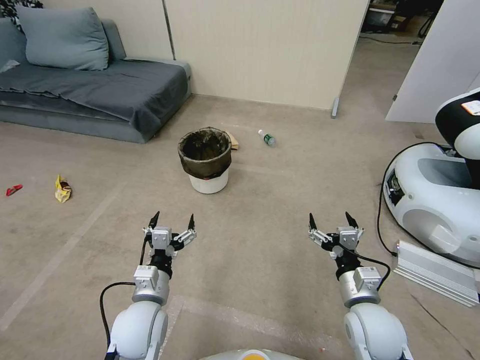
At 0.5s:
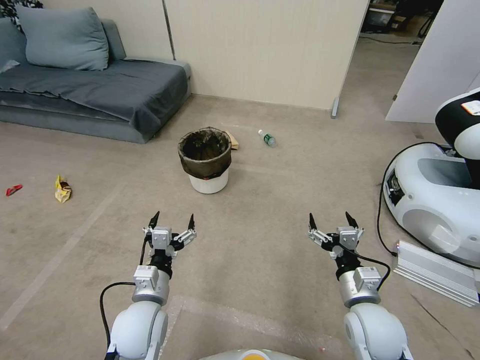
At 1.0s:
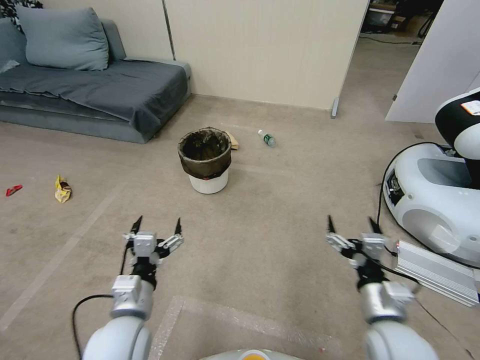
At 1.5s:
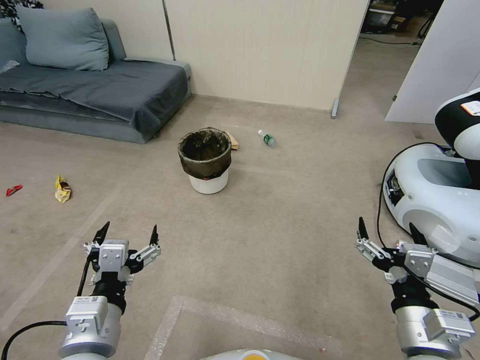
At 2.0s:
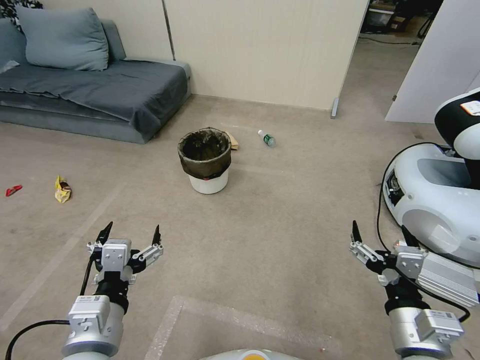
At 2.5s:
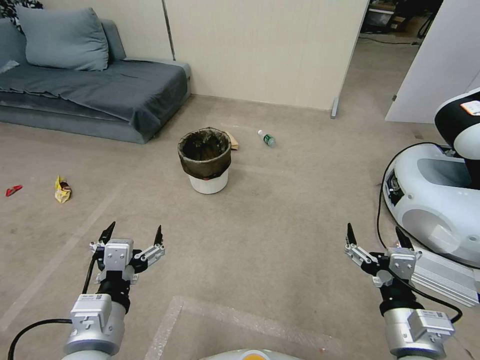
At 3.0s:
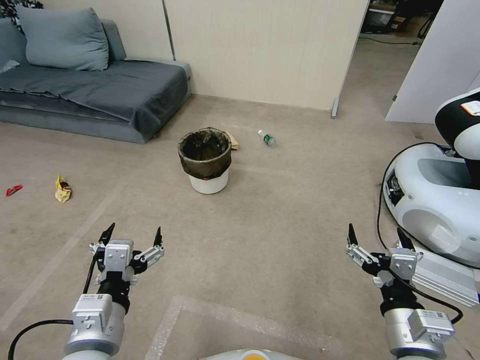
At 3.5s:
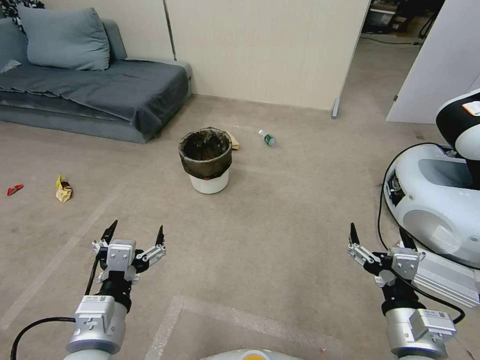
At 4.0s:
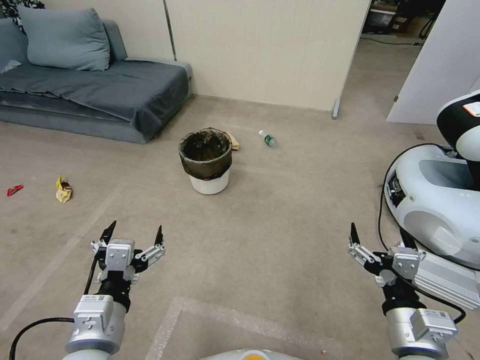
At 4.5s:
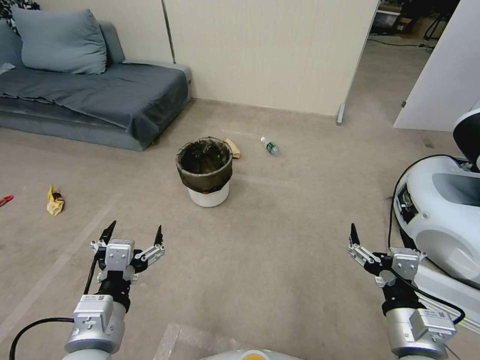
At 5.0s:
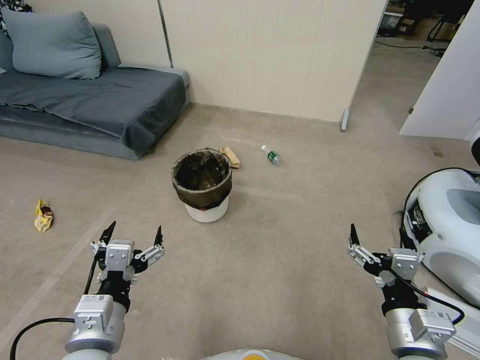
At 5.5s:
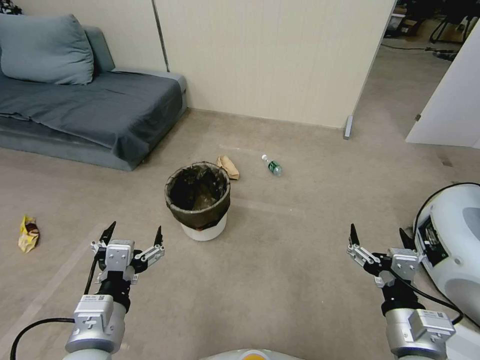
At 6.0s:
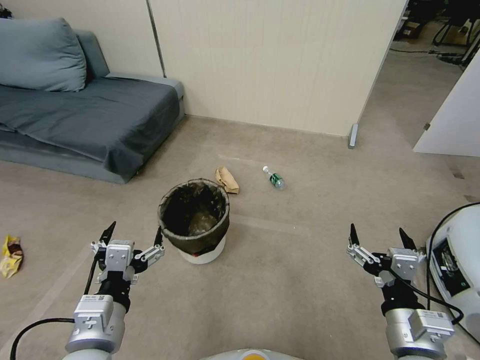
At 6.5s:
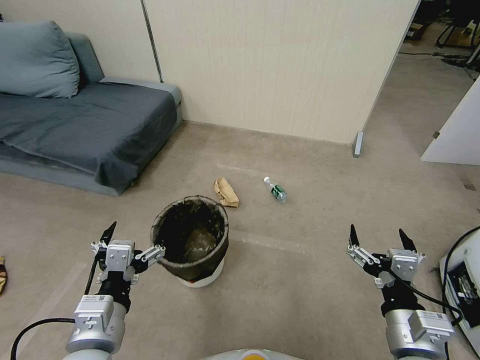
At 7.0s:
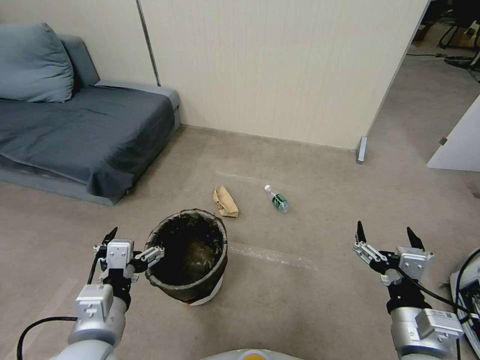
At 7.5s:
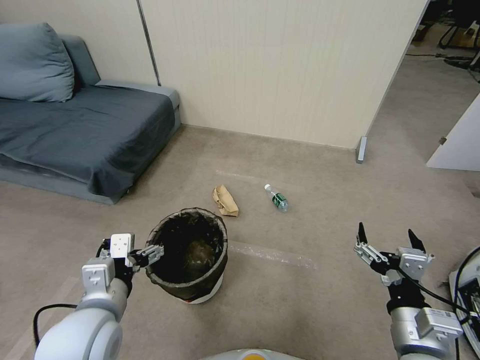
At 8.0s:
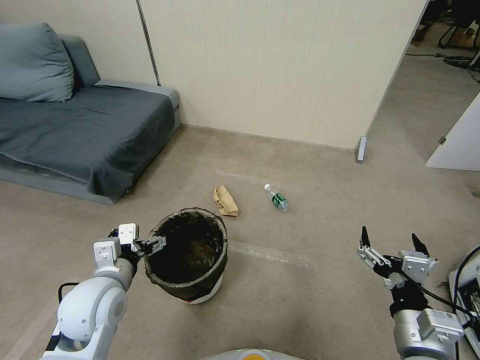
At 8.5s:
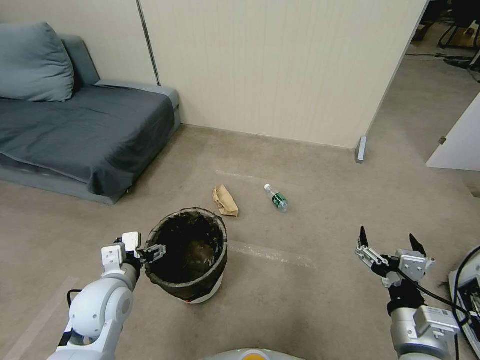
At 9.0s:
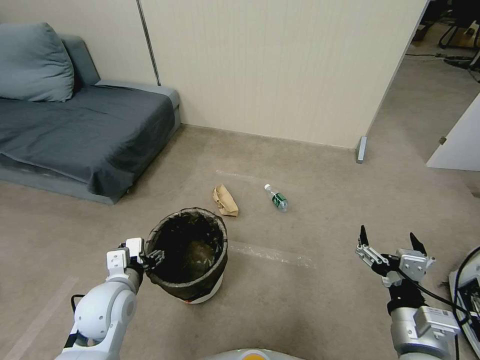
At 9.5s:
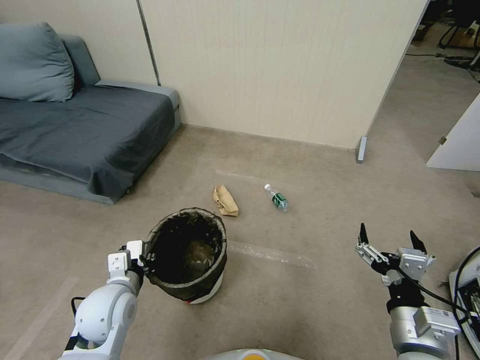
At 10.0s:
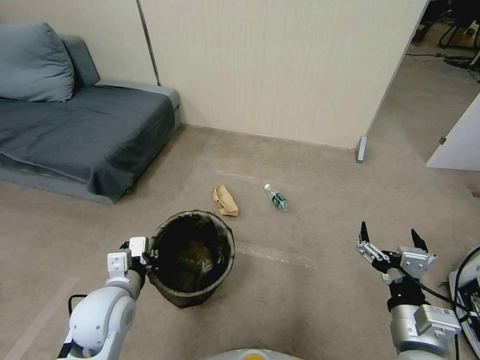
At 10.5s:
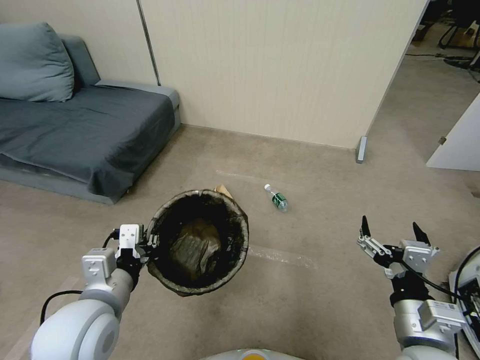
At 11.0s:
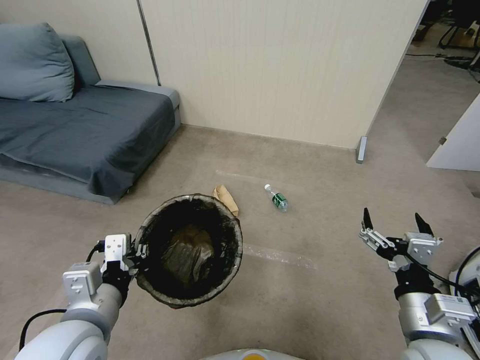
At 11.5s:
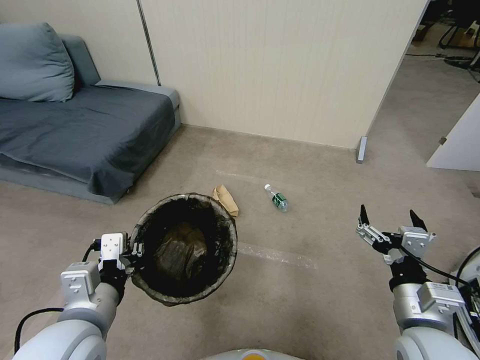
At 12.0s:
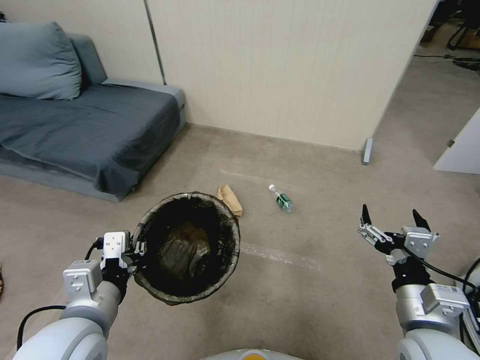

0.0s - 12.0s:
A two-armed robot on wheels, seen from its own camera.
Task of the whole recording: Pick up the trash bin, then pick up the garbage from the floor and place it into the trash bin.
2.0s - 4.0s: The two grippers keep their place.
6.0s - 8.0s: The left gripper travels forward by roughly 10 cm.
8.0s - 10.0s: The left gripper closes its fingers.
10.0s - 12.0s: The left gripper heads upward and backward, covering some 10 cm.

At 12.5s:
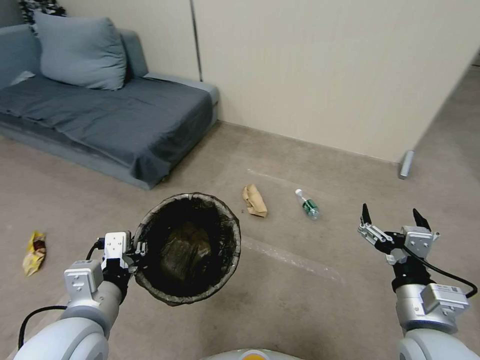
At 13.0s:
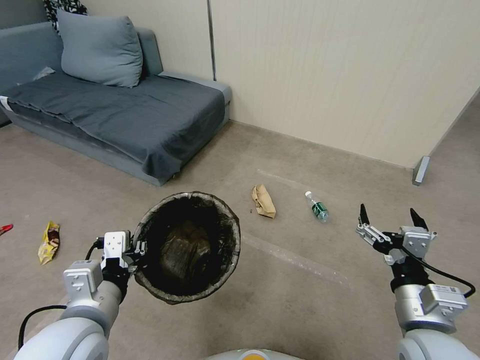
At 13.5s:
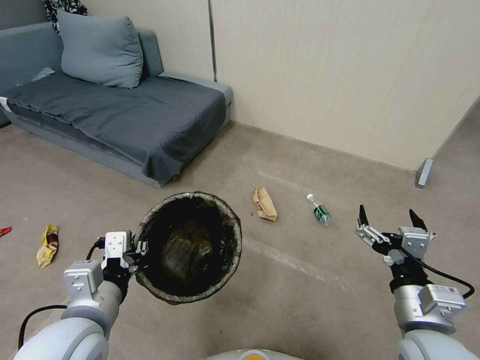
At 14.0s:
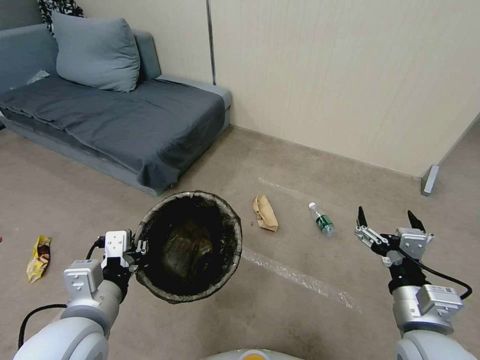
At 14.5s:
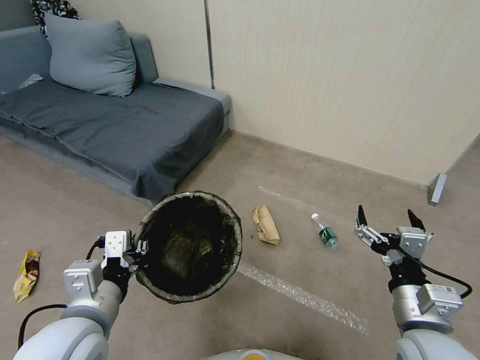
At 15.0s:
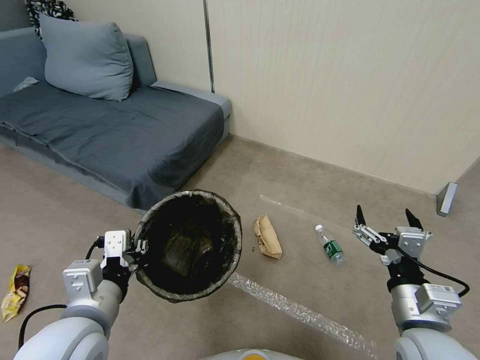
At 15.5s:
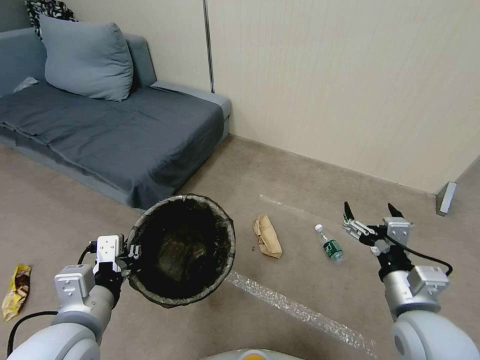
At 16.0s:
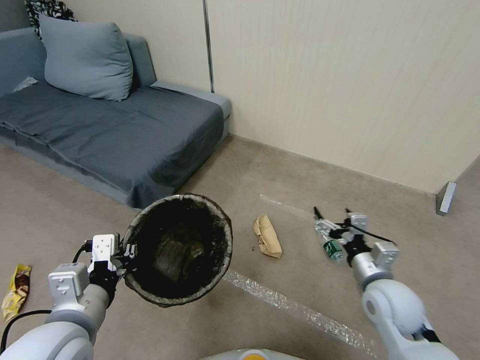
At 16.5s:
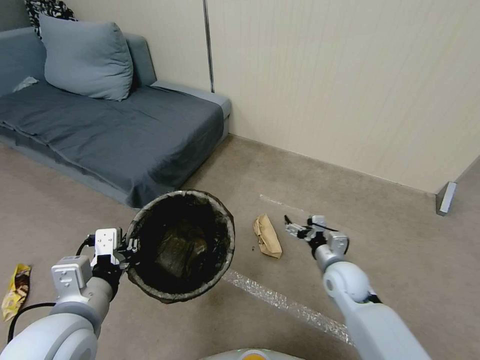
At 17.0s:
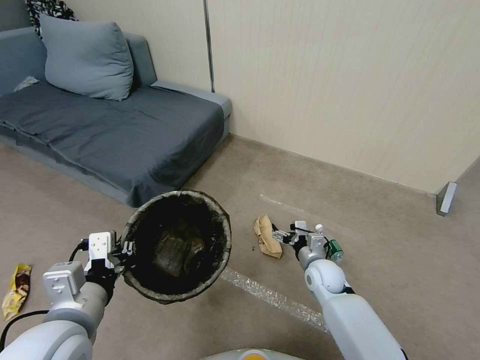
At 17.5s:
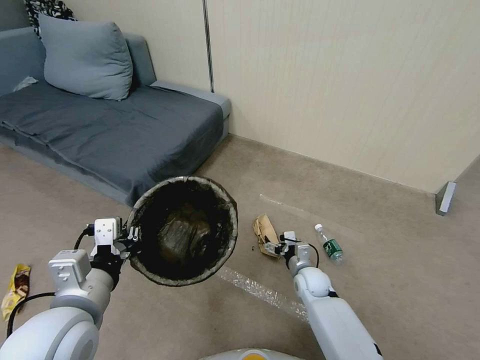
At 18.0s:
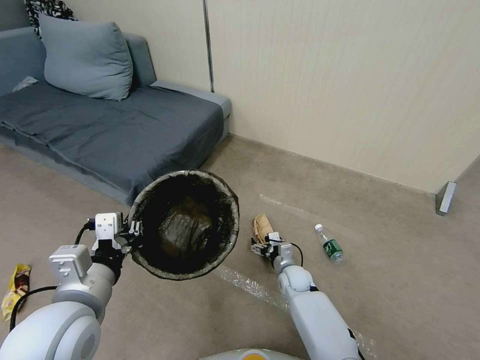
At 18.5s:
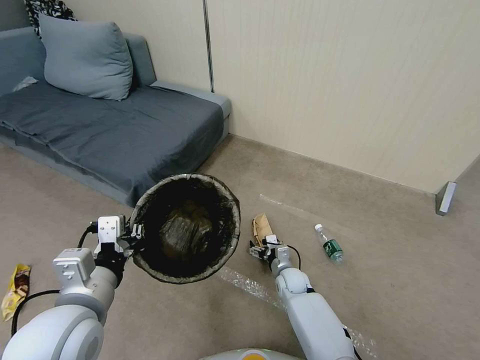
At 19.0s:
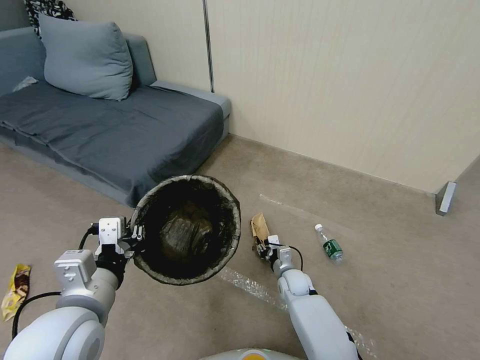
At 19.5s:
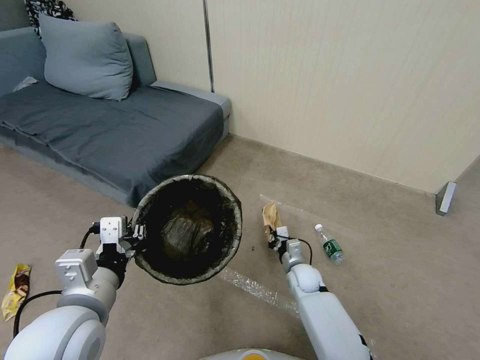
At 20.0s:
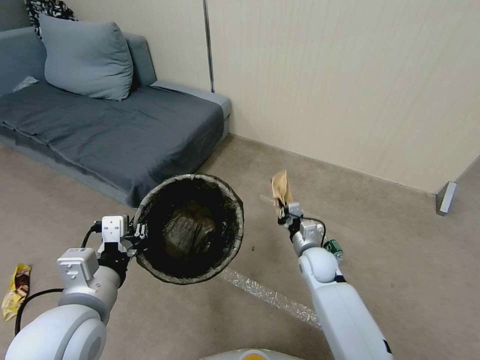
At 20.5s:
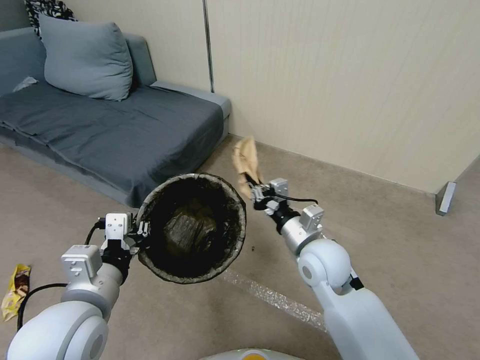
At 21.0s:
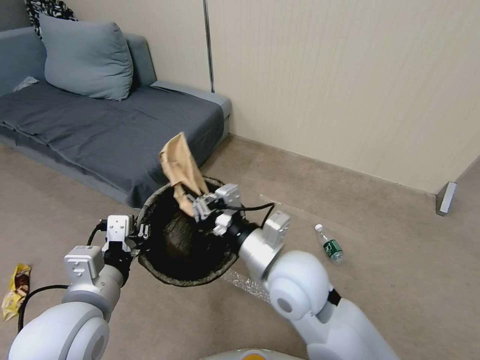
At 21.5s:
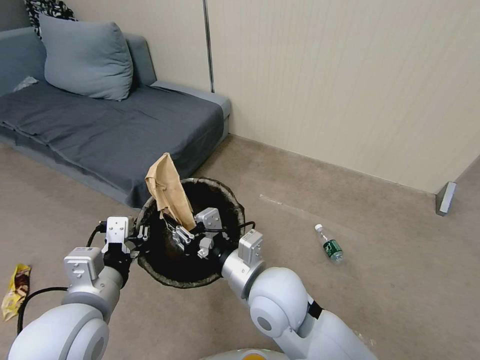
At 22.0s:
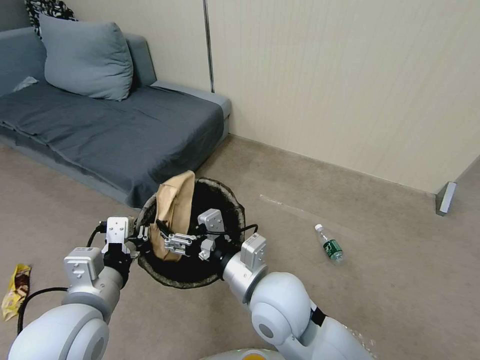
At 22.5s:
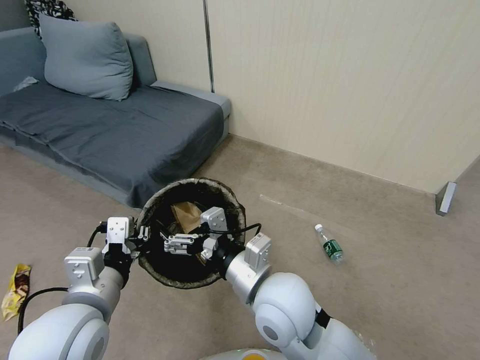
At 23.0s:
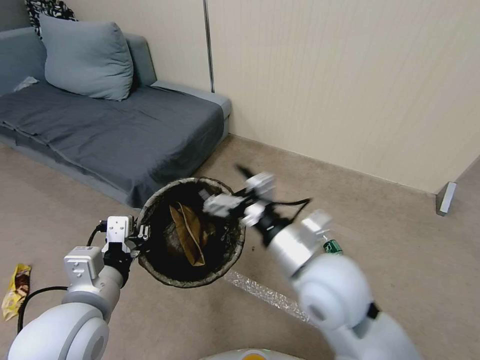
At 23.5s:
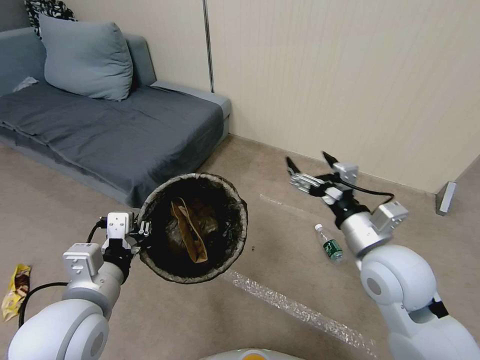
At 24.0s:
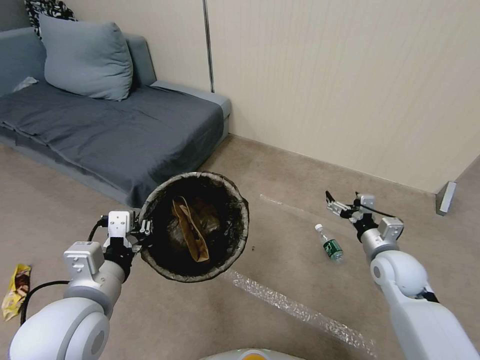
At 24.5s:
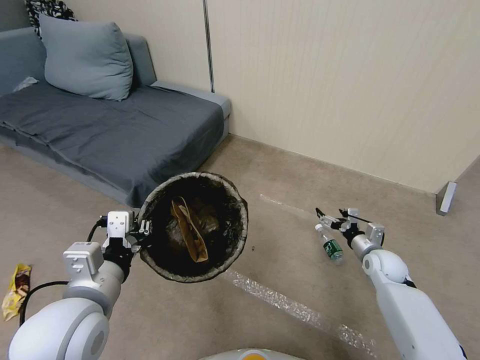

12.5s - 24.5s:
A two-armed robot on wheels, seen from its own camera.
Task of the whole recording: Pick up the trash bin, then pick up the garbage from the floor and place it into the trash bin.
12.5s - 14.5s: The two grippers keep their place.
14.5s - 16.5s: The right gripper shifts some 20 cm forward and downward.
16.5s - 18.5s: The right gripper travels downward and to the left by some 20 cm.
18.5s - 20.5s: The right gripper travels upward by approximately 30 cm, and closes its fingers.
20.5s - 22.5s: The right gripper goes some 15 cm to the left and backward, and opens.
22.5s - 24.5s: The right gripper heads to the right, downward and forward, covering roughly 40 cm.

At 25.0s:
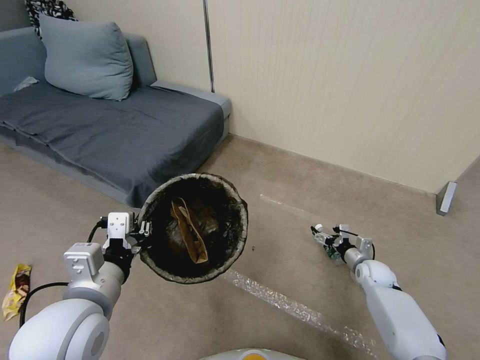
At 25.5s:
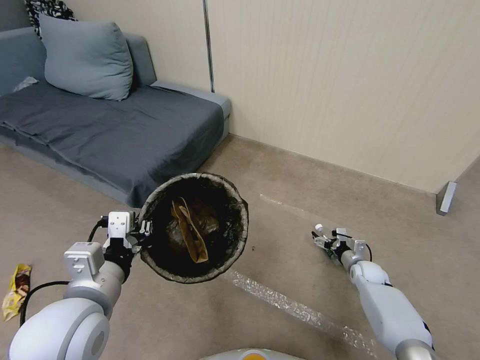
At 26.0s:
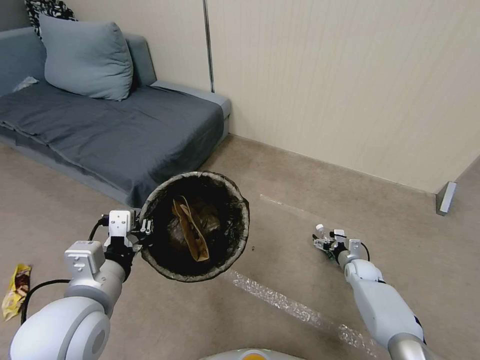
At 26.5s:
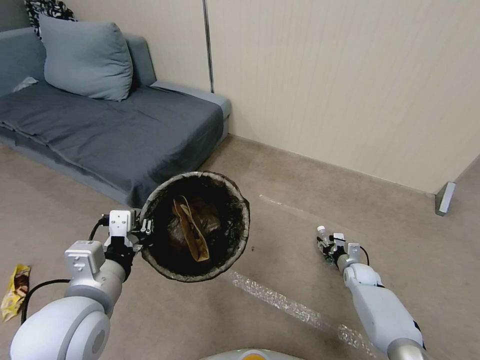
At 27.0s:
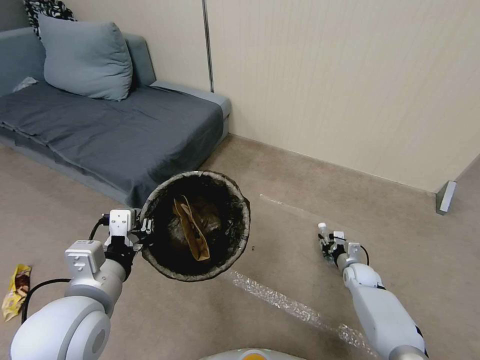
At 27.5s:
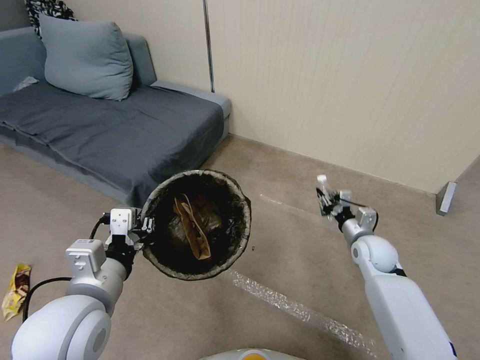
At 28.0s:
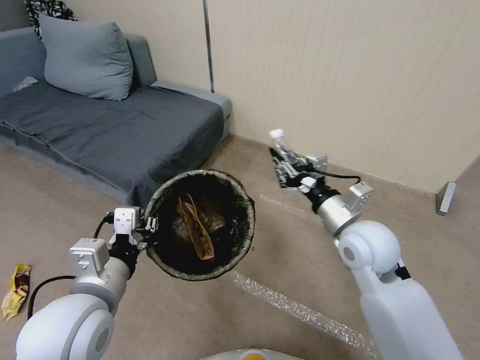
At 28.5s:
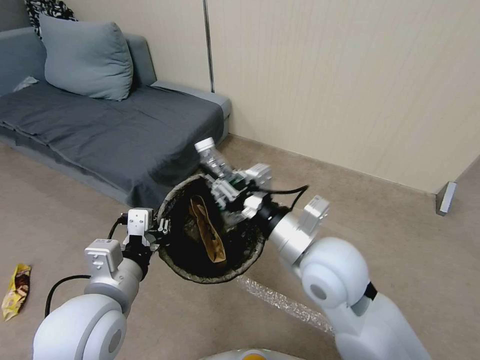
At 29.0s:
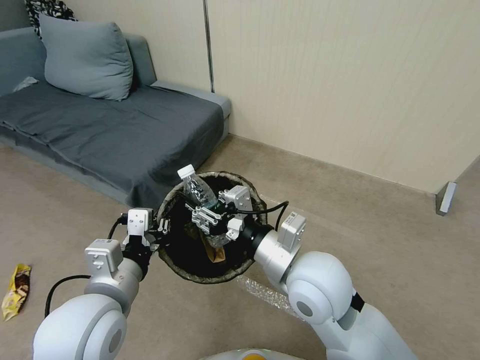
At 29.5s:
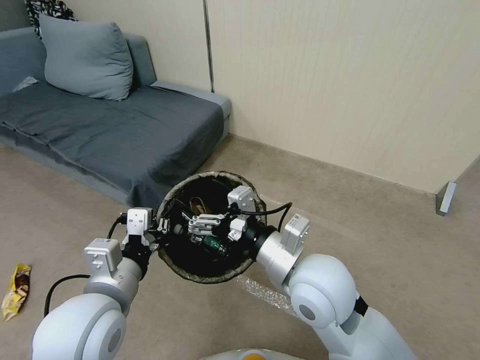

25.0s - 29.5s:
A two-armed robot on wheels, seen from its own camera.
Task of the whole recording: Pick up the trash bin, then pick up the garbage from the floor and place it into the trash bin.
25.0s - 27.0s: The right gripper closes its fingers.
27.0s - 29.5s: The right gripper travels upward and to the left by some 40 cm, and opens.
